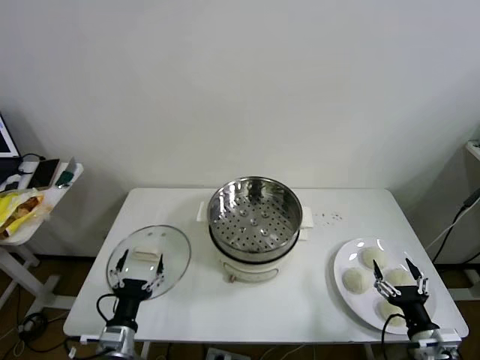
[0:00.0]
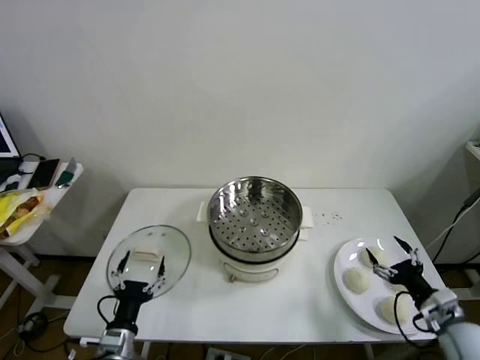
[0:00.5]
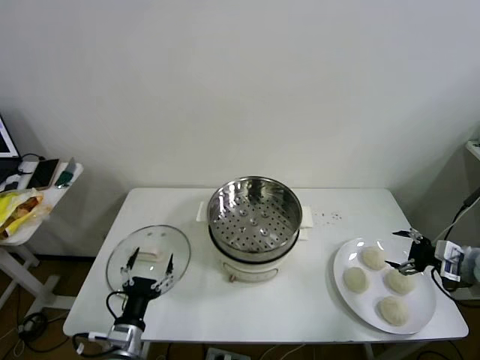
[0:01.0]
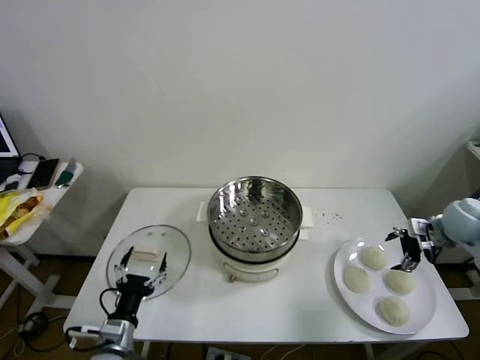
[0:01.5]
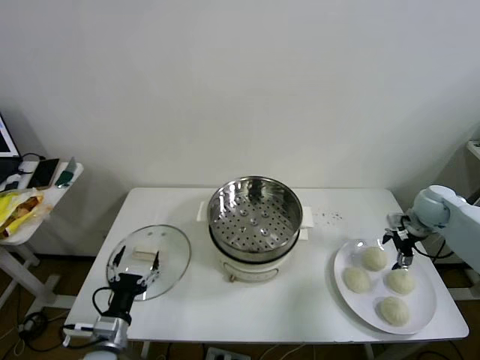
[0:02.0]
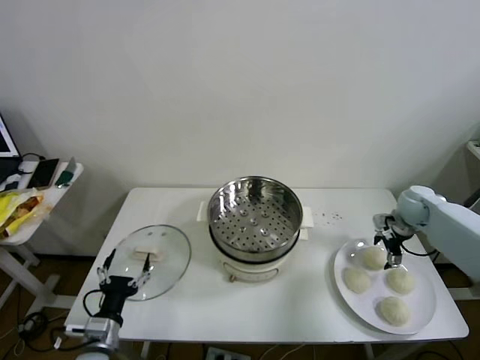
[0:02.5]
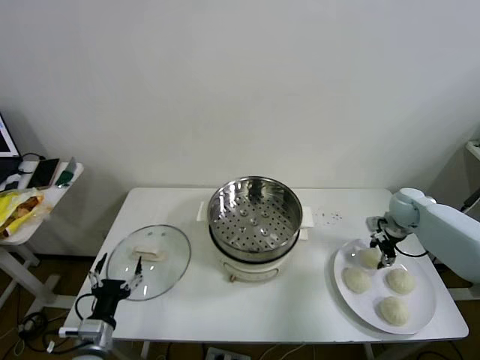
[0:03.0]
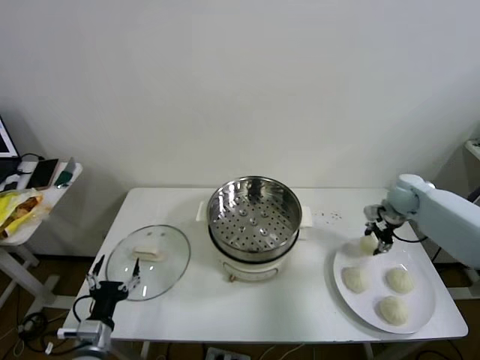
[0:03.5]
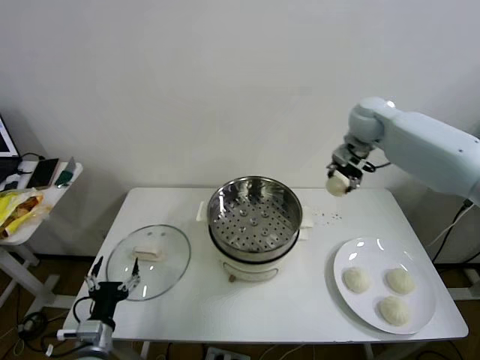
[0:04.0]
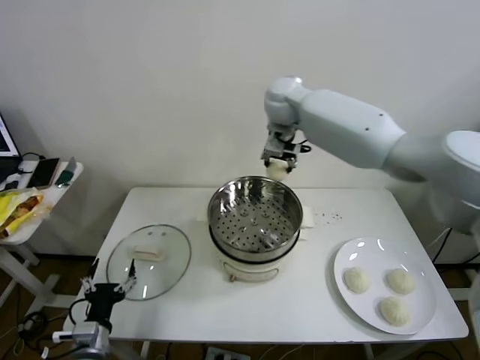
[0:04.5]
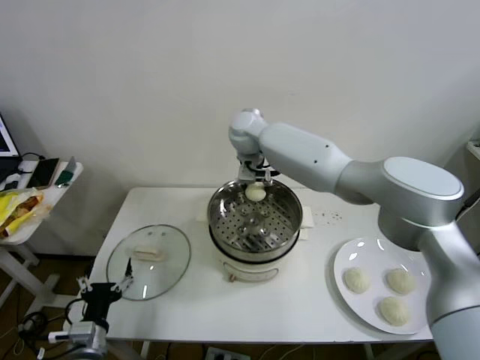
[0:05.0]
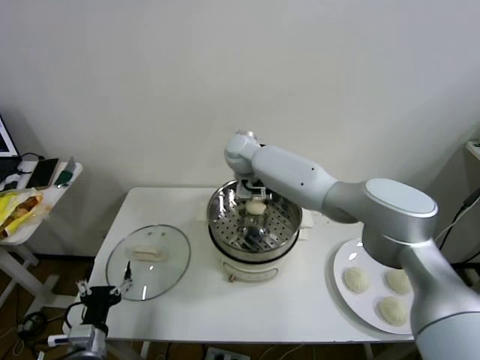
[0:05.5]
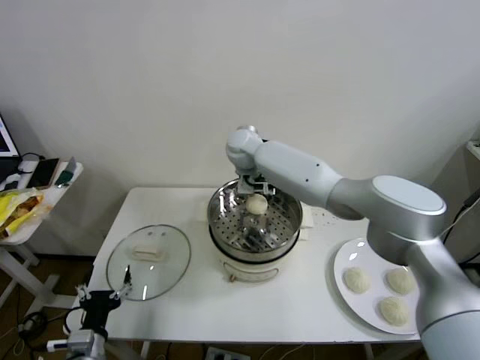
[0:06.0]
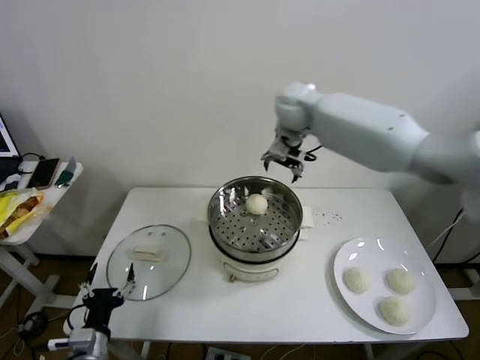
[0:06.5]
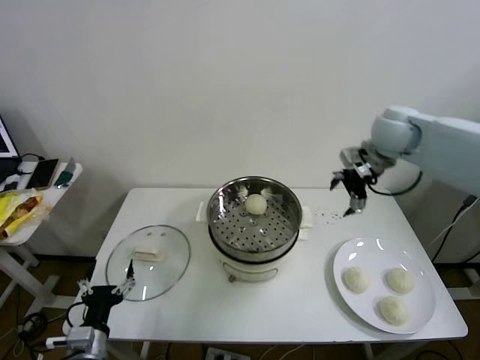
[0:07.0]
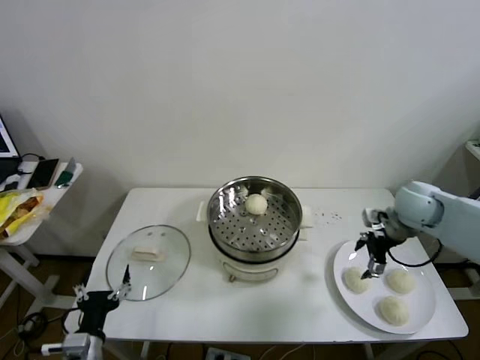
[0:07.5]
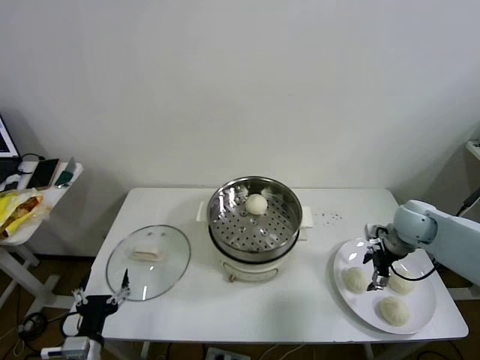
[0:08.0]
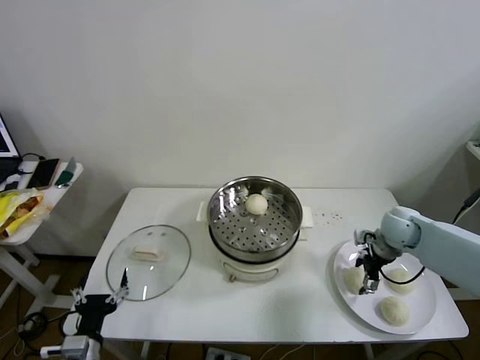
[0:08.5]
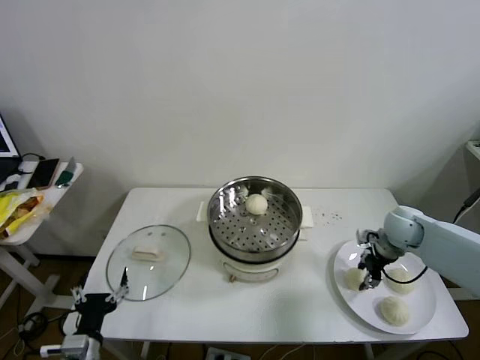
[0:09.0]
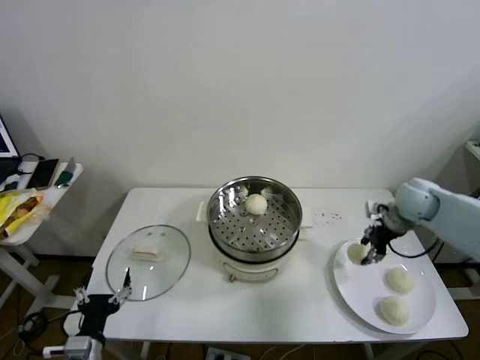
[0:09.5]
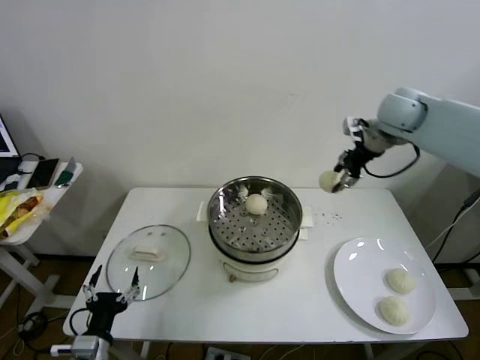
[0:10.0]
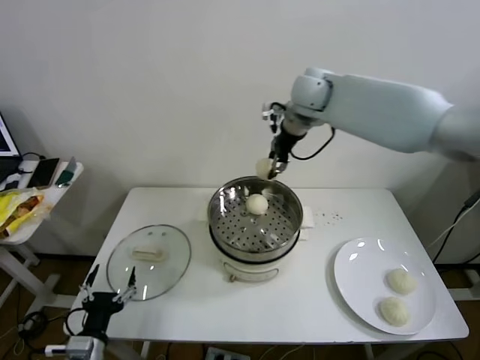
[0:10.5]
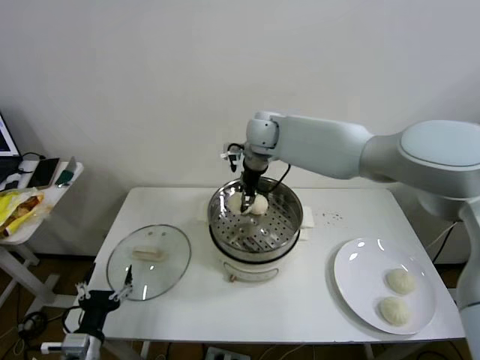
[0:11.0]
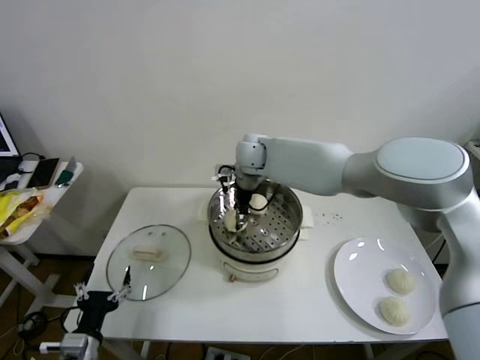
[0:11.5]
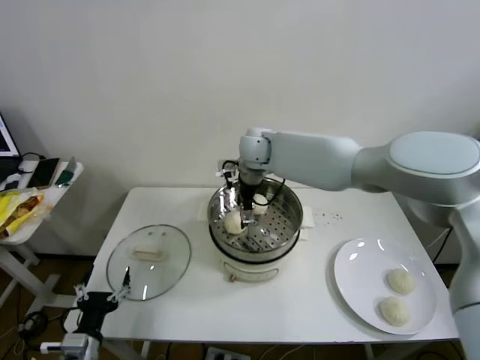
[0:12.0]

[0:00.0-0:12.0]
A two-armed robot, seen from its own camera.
Step, 0:00.0 to 0:02.5: Grasp the baozi in the plate with right gripper.
Step, 0:03.0 to 0:05.5: Place the baozi on the steamer with right gripper.
Step, 0:06.0 to 0:08.5: Grasp the baozi in the plate with right gripper.
Step, 0:09.0 to 0:11.5: Place the baozi on the steamer with right gripper.
0:02.0 to 0:04.0: The right gripper travels to the left, upward and forward by approximately 35 cm, and closes up.
0:04.0 to 0:06.0: The right gripper goes approximately 25 cm to the left, and opens its fingers.
0:06.0 to 0:08.0: The right gripper heads to the right, covering roughly 40 cm.
0:08.0 to 0:10.0: The right gripper travels upward and forward by roughly 30 cm, and closes its fingers.
0:10.0 to 0:12.0: The right gripper shifts roughly 30 cm to the left and downward, and opens.

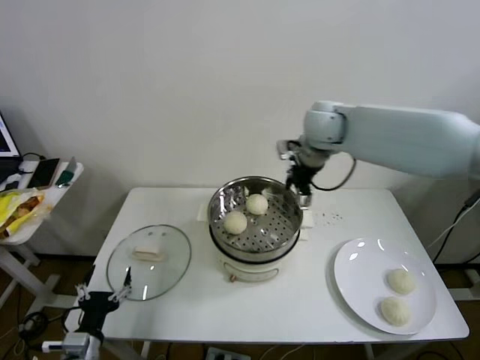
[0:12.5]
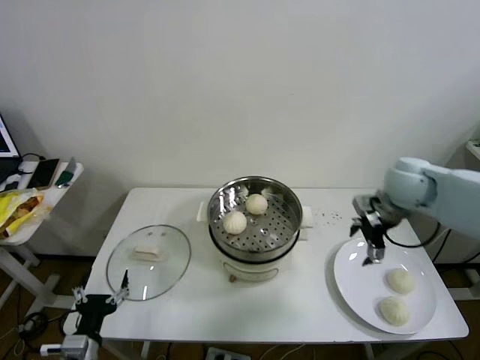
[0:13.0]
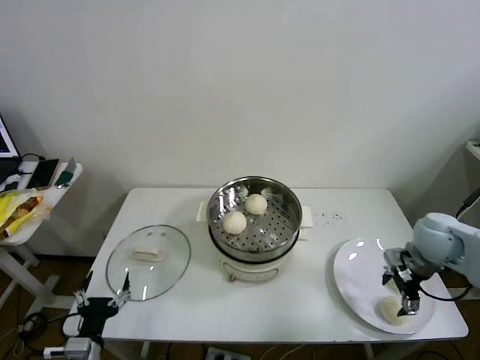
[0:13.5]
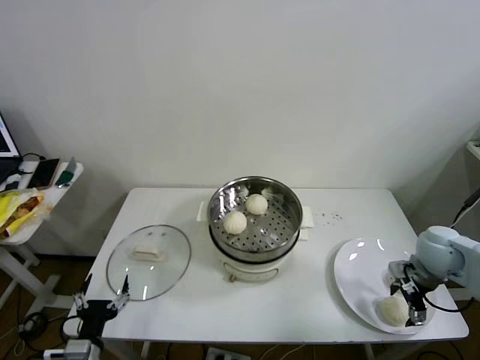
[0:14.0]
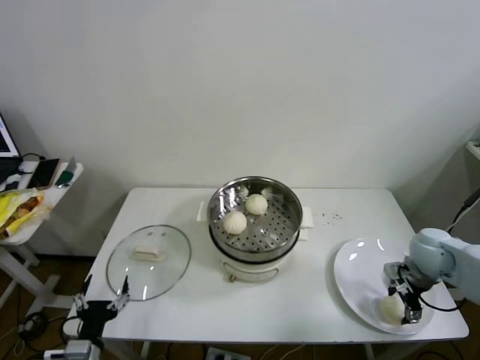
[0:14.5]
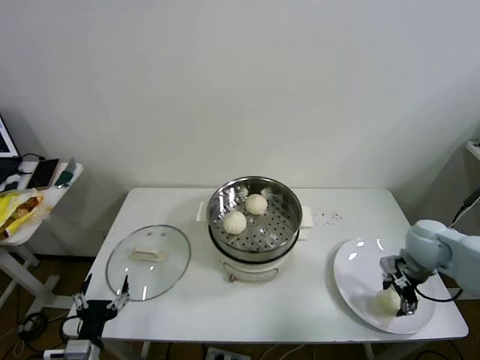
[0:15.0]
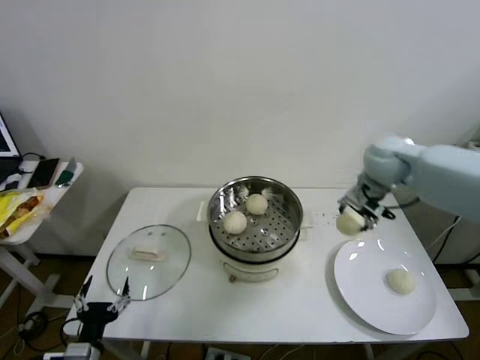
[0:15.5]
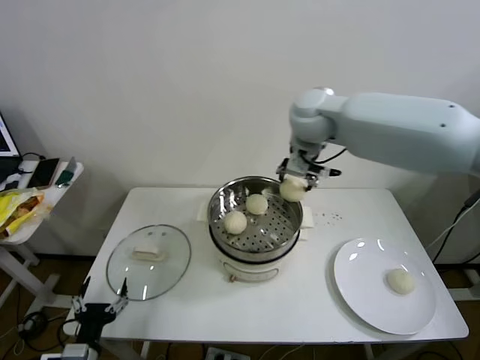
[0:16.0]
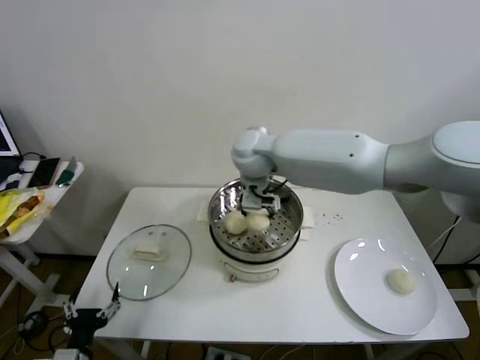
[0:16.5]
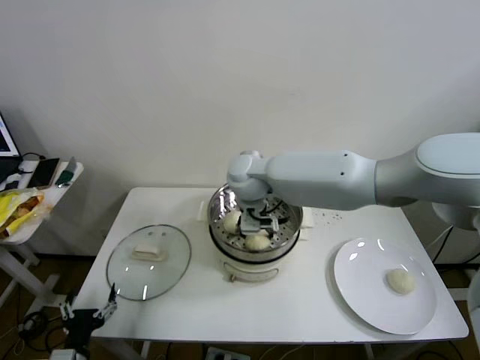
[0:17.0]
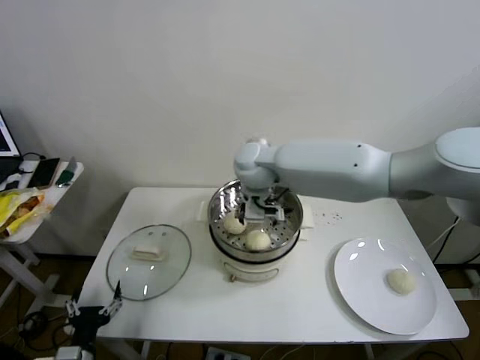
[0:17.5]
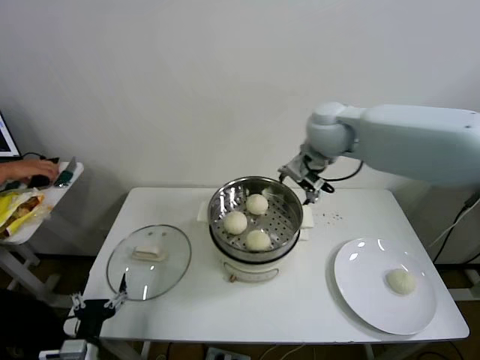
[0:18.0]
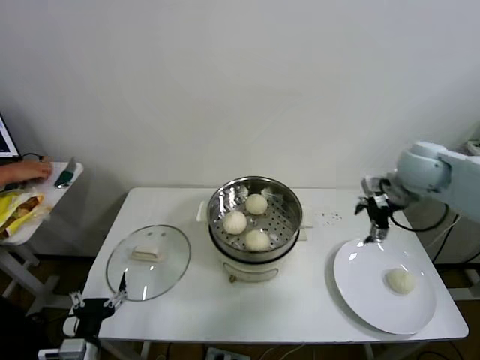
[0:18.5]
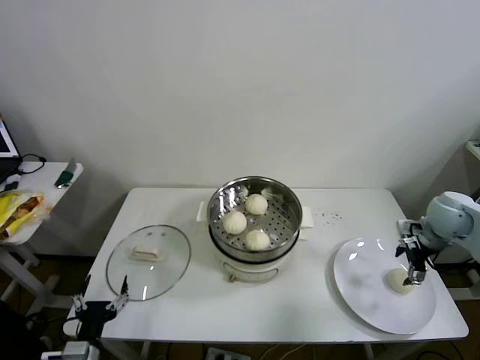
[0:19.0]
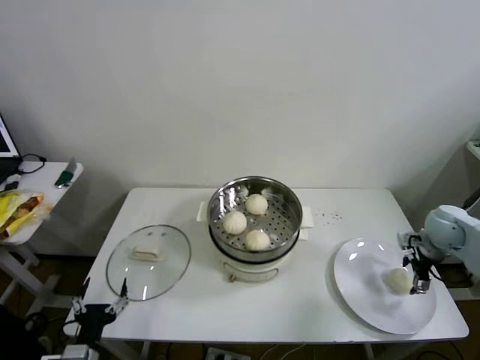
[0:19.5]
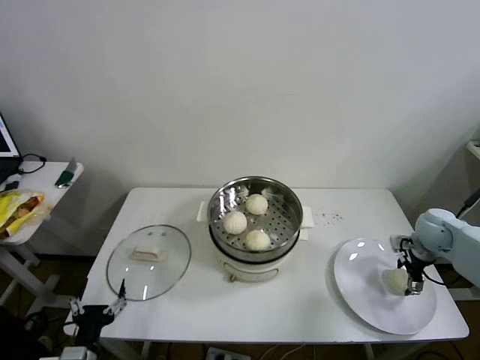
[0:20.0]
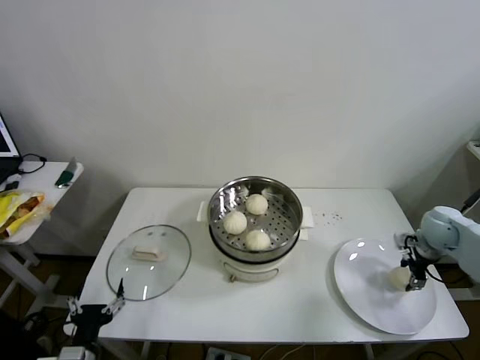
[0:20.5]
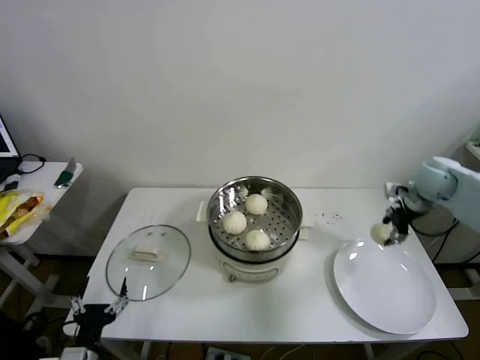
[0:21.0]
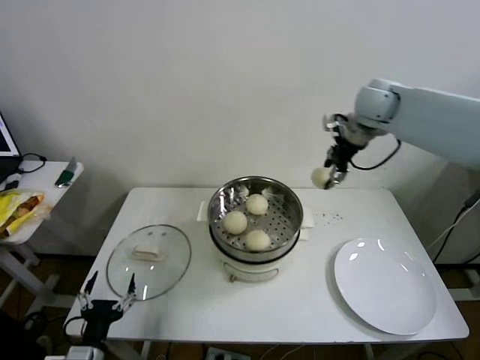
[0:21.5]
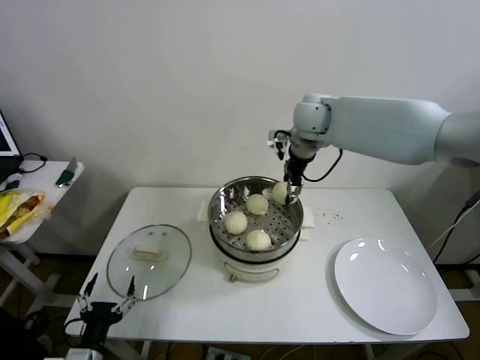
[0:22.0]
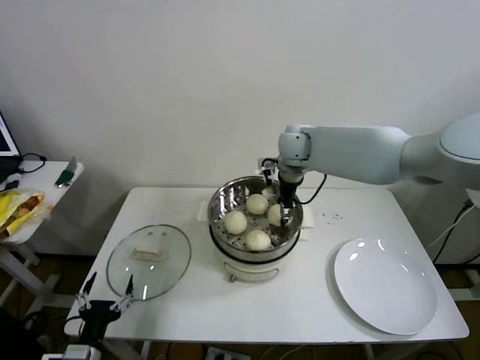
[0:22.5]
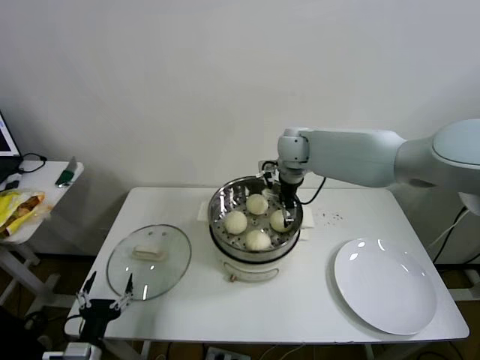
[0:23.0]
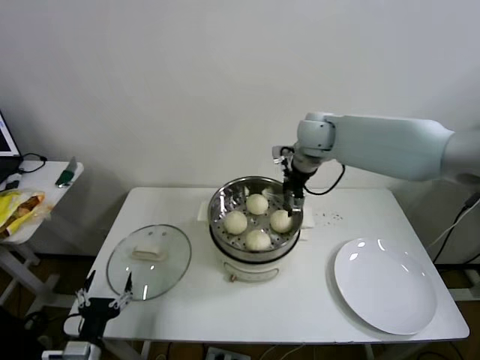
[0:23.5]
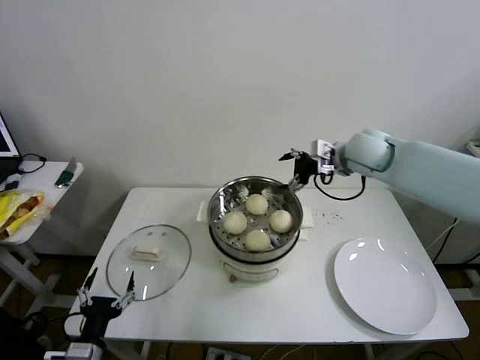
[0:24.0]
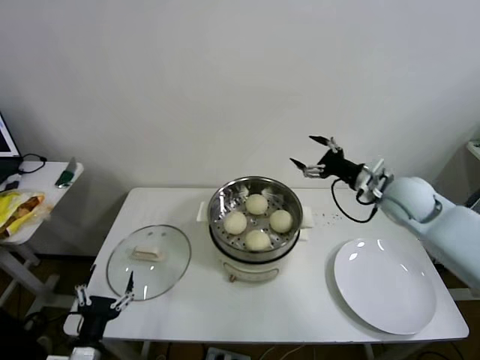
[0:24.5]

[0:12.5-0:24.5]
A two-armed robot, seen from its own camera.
Step, 0:12.5 to 0:14.5: Grasp the baozi in the plate with right gripper.
Step, 0:15.0 to 0:17.0: Place the baozi on the steamer with right gripper.
Step, 0:17.5 to 0:20.0: Grasp the baozi in the plate with right gripper.
Step, 0:20.5 to 0:22.5: Place the baozi on the steamer with right gripper.
0:12.5 to 0:14.5: The right gripper heads downward, to the right and backward, covering some 35 cm, and closes up.
0:14.5 to 0:16.5: The right gripper goes approximately 40 cm to the left and upward.
0:16.5 to 0:18.5: The right gripper travels to the right by about 35 cm, and opens.
0:18.5 to 0:20.5: The right gripper moves downward and to the right, about 20 cm, and closes.
0:20.5 to 0:22.5: The right gripper goes some 40 cm to the left and upward.
0:22.5 to 0:24.5: The right gripper is displaced to the right and backward by about 25 cm, and opens.

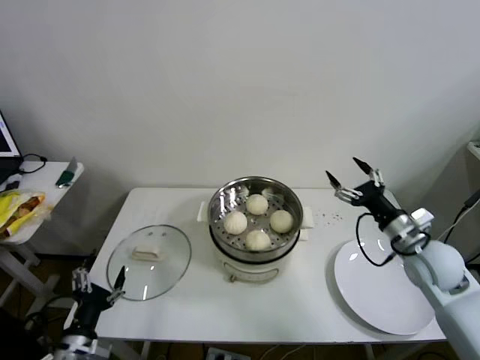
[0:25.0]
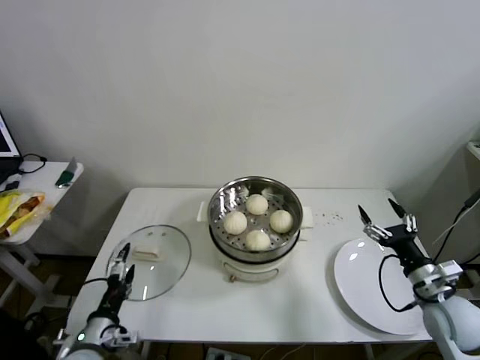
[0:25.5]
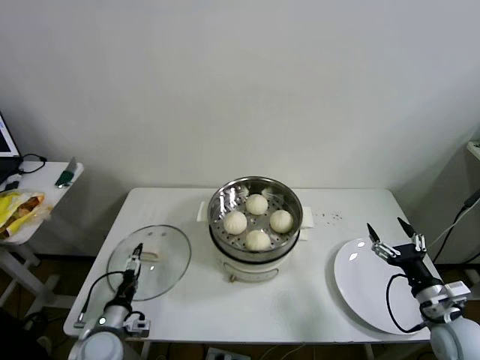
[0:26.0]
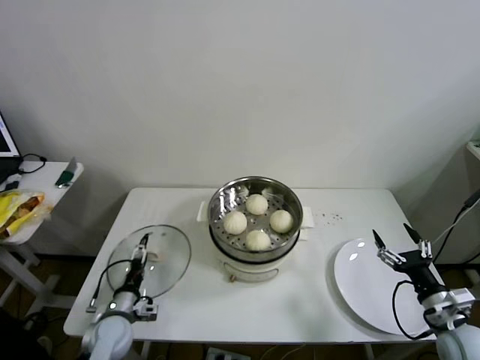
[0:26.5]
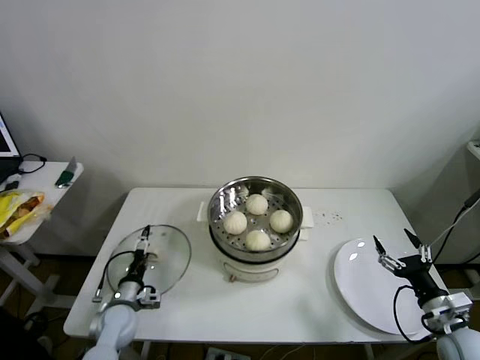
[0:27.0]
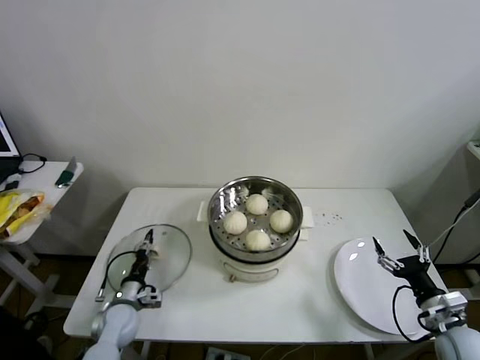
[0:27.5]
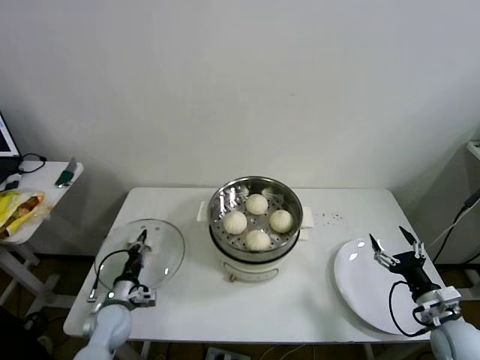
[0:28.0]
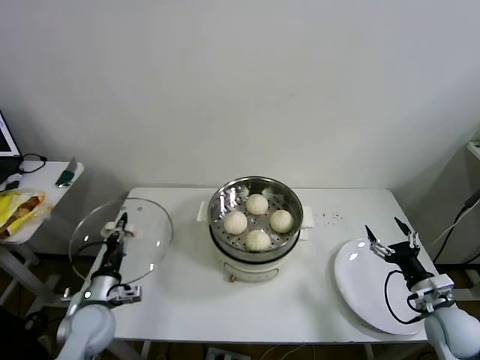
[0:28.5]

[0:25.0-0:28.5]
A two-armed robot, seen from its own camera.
0:25.0 to 0:27.0: The left gripper heads forward and downward, covering approximately 20 cm. The right gripper moves backward, downward and to the right, approximately 20 cm.
0:27.0 to 0:28.5: The left gripper moves upward, roughly 10 cm, and closes.
